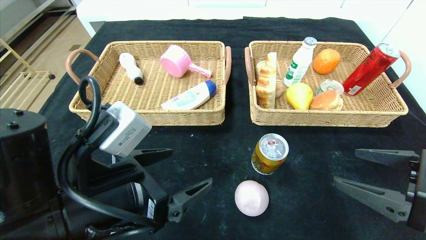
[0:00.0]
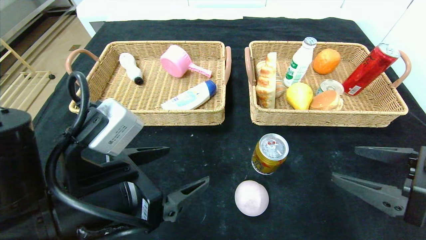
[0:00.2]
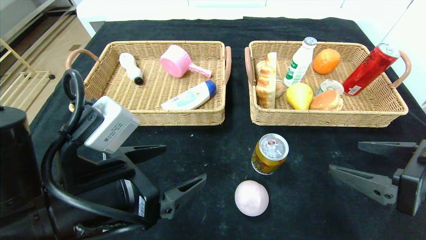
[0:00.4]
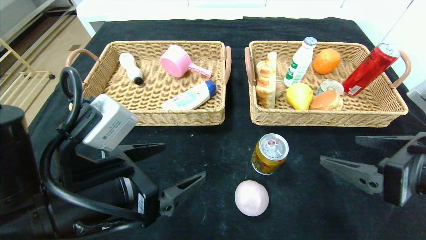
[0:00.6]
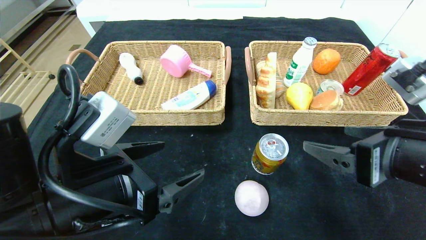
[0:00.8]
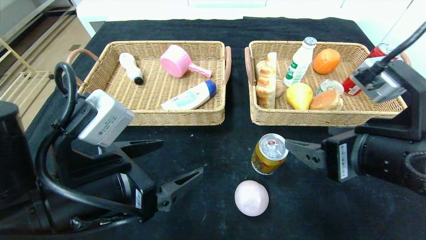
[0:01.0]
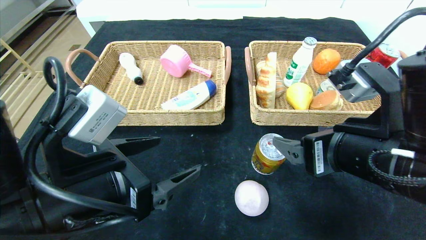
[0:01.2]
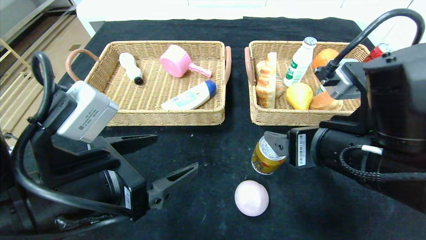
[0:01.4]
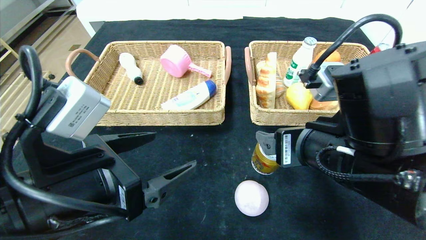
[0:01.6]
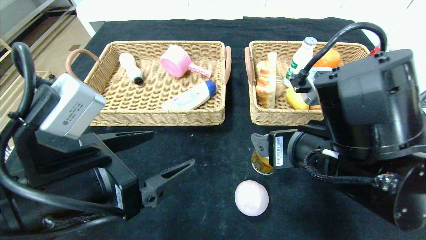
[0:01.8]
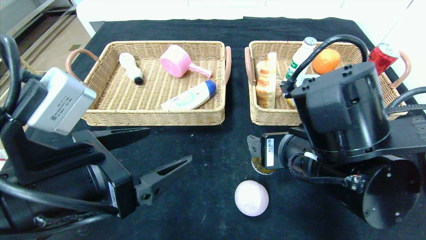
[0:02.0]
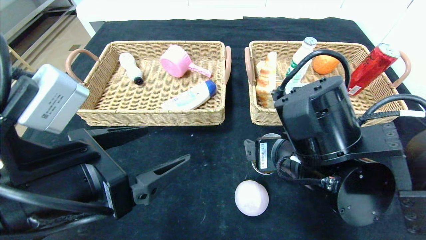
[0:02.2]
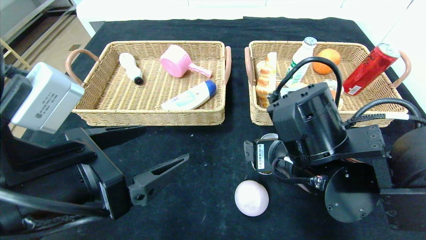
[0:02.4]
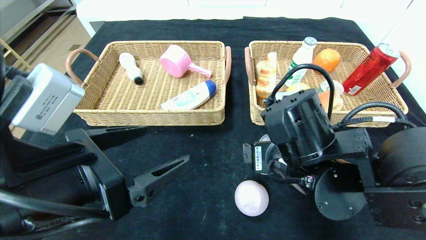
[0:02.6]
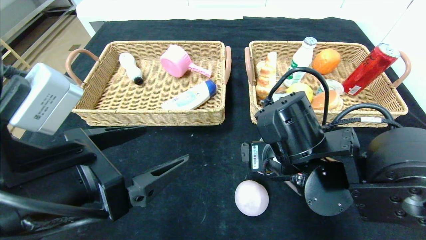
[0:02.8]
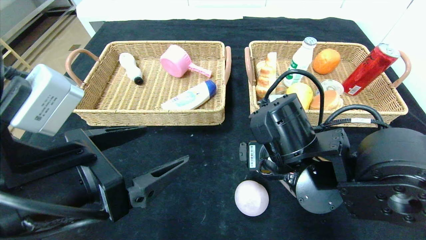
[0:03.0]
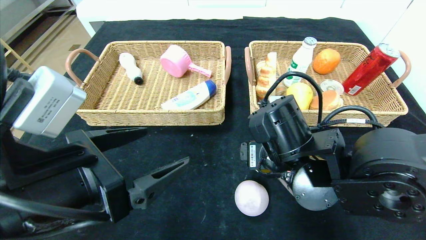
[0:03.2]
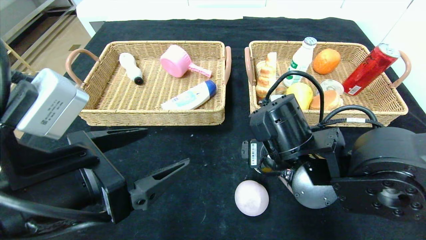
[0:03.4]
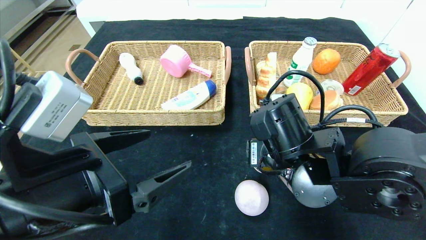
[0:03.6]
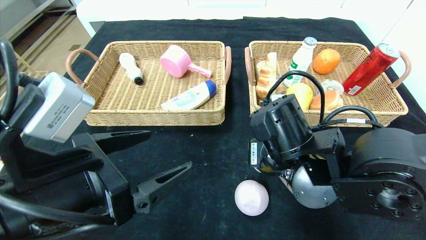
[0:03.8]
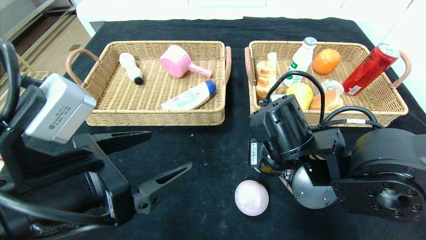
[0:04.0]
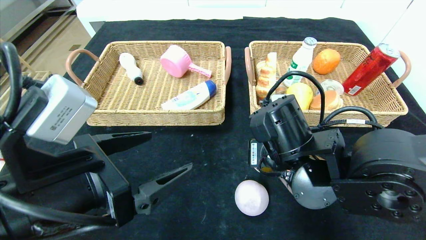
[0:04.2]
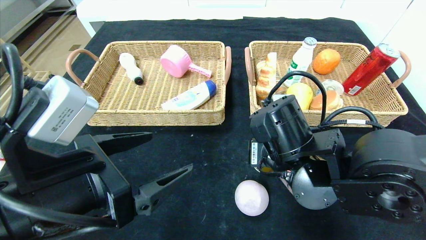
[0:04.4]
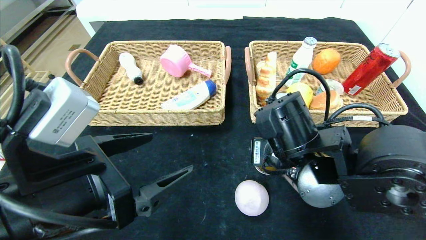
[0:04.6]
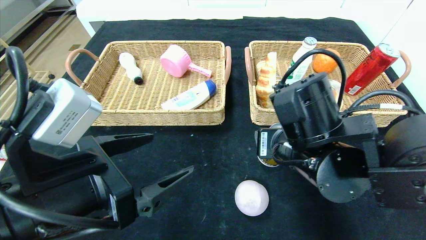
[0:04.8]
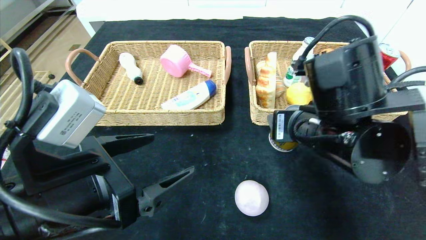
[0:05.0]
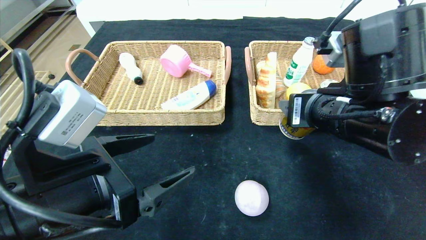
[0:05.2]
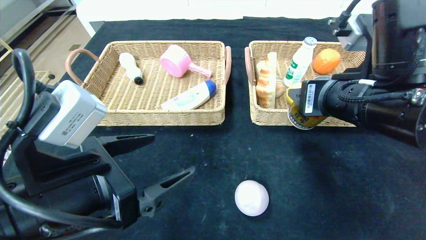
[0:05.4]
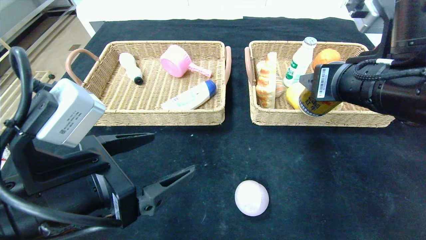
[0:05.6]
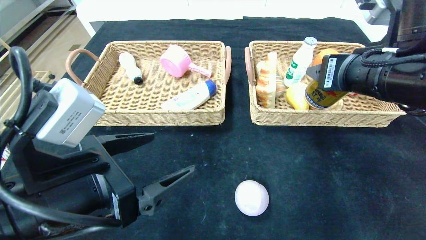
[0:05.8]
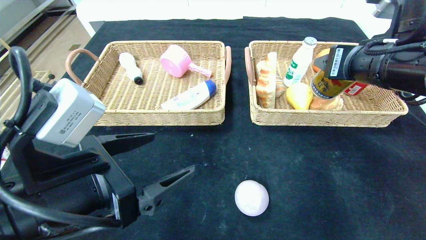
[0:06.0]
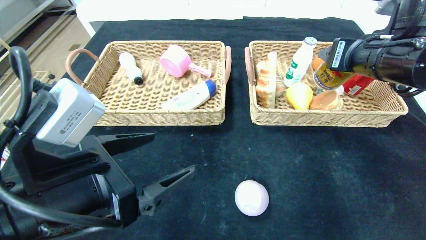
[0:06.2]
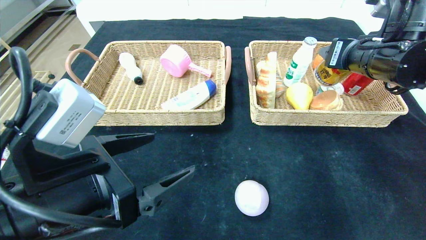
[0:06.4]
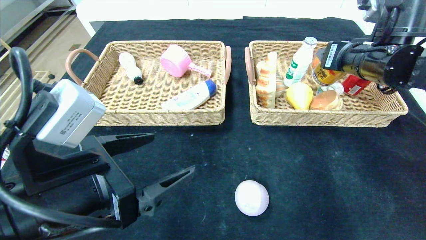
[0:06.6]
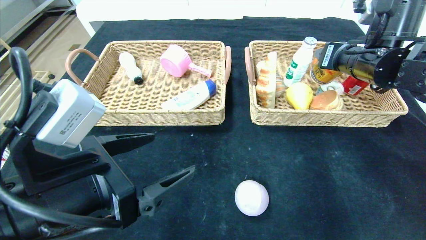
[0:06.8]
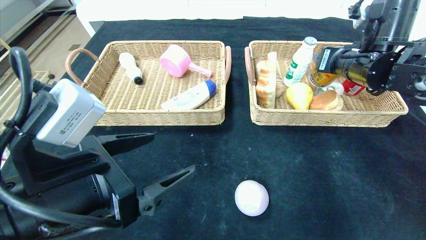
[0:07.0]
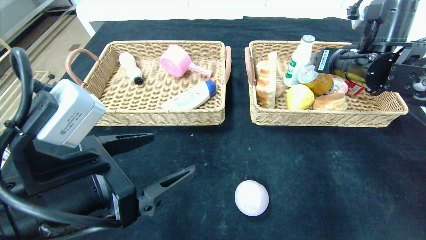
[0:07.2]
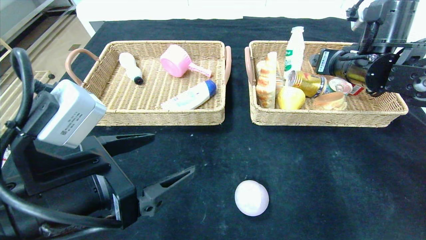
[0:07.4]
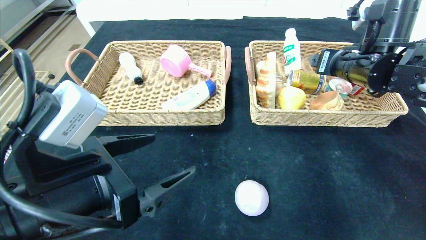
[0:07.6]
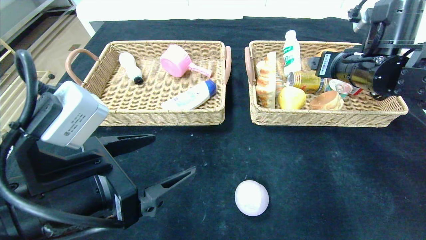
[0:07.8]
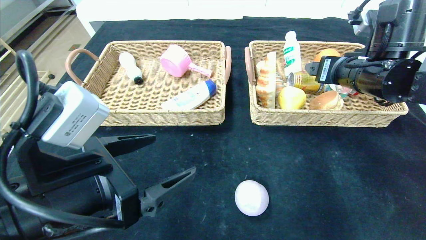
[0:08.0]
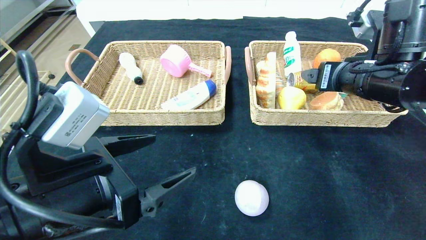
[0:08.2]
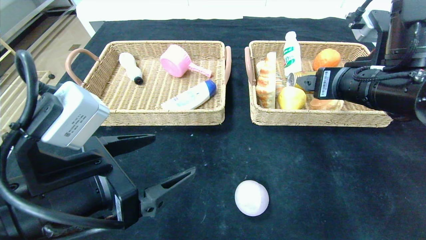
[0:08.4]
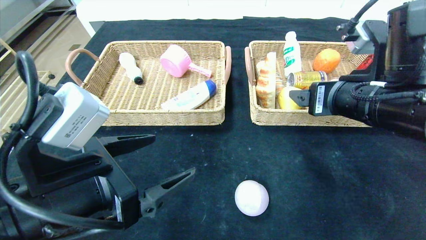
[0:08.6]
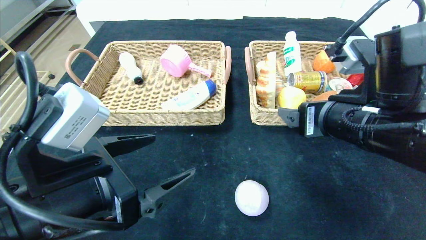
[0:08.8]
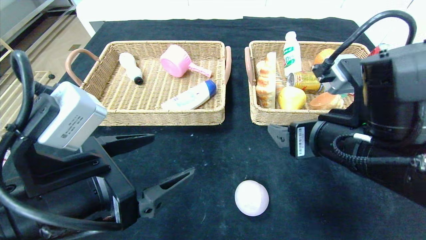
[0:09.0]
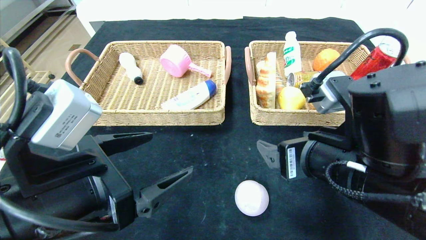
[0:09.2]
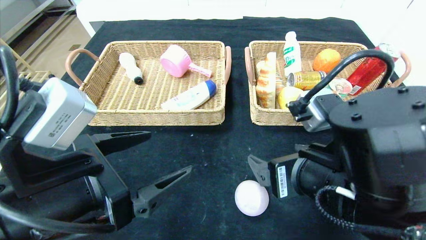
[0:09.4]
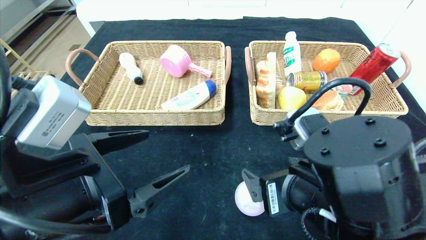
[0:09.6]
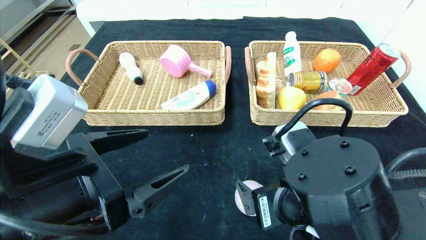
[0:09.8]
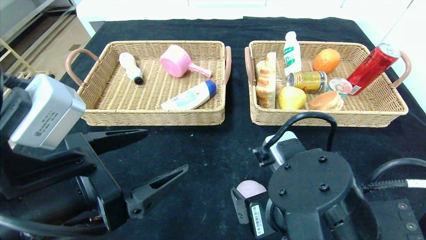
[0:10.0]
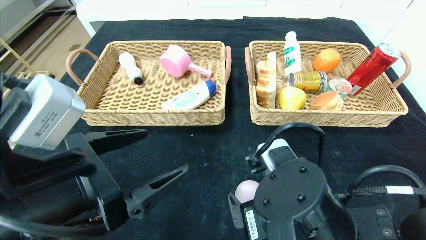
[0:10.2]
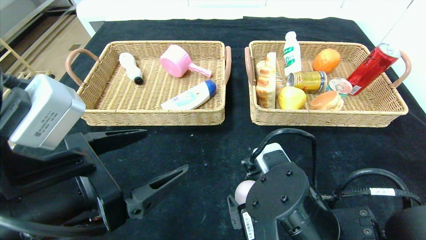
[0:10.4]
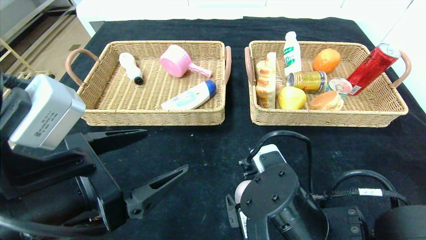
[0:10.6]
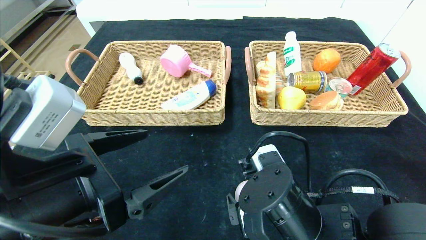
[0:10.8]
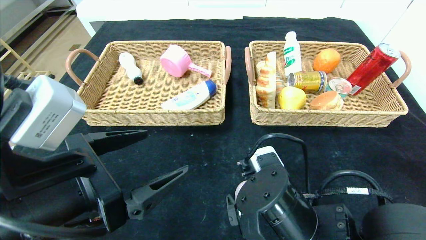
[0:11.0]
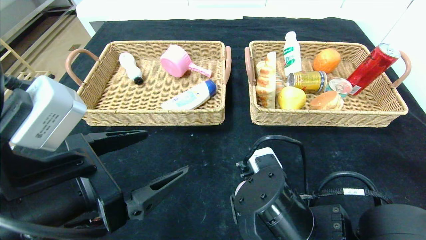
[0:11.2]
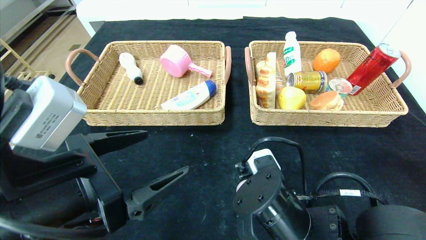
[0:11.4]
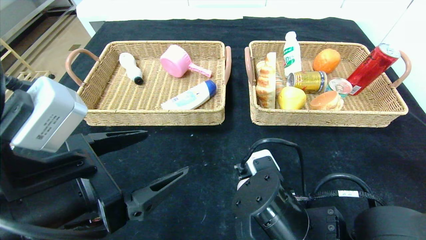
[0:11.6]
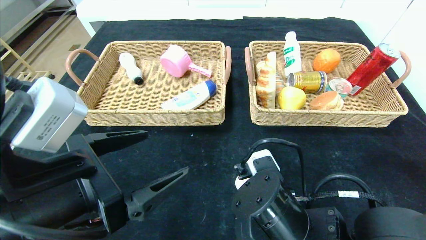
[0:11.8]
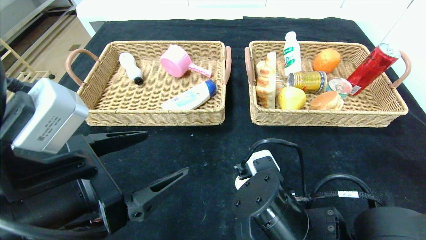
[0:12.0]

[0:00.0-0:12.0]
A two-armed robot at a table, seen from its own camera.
Step, 0:00.0 to 0:07.2: Grasp the Red Bull and put it in the right basket.
0:00.0 to 0:01.6: The right gripper travels to the left by approximately 15 cm.
0:01.6 to 0:03.0: The right gripper travels downward by approximately 5 cm.
0:03.0 to 0:04.4: Both grippers stay about where they are.
0:04.4 to 0:06.0: The right gripper shifts some 20 cm upward and to the right.
0:06.0 to 0:07.6: The right gripper moves forward, roughly 10 cm.
0:07.6 to 0:09.0: The right gripper heads backward and to the left, covering some 20 cm.
0:09.0 to 0:10.4: The right gripper heads downward and to the left, covering about 10 cm.
0:10.4 to 0:12.0: The right gripper closes up.

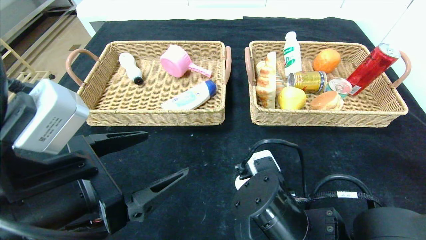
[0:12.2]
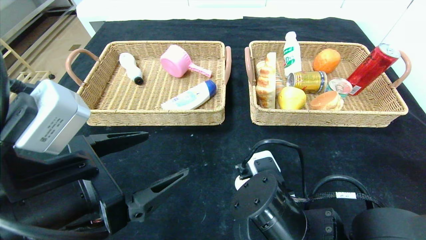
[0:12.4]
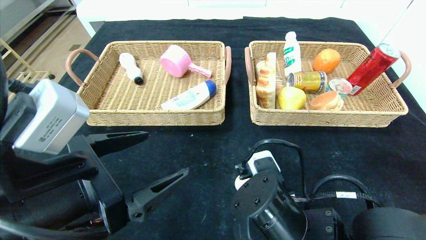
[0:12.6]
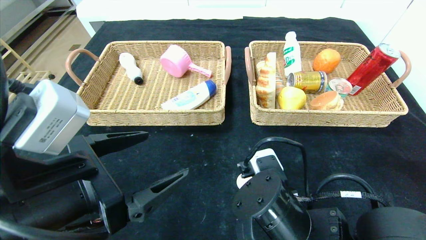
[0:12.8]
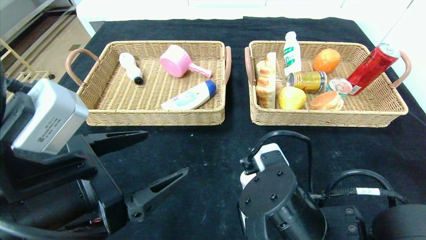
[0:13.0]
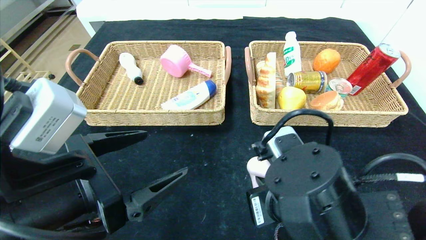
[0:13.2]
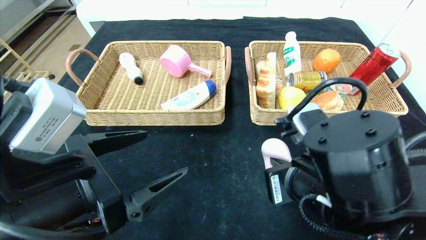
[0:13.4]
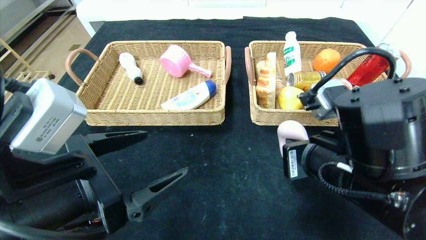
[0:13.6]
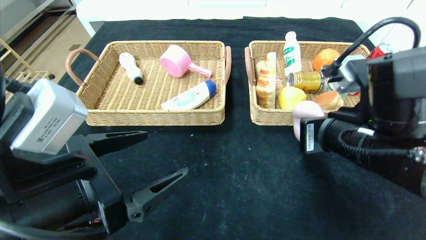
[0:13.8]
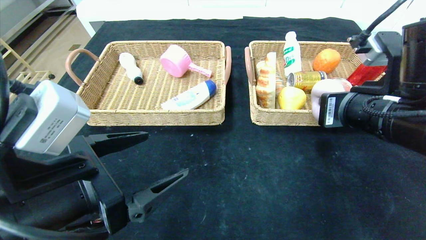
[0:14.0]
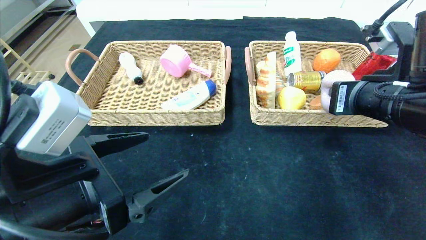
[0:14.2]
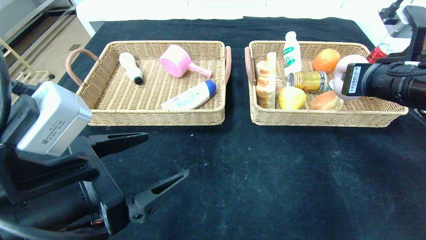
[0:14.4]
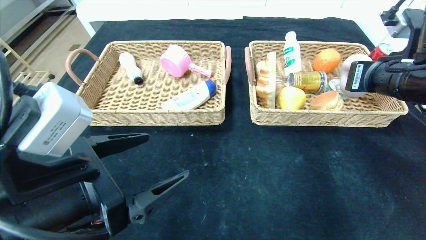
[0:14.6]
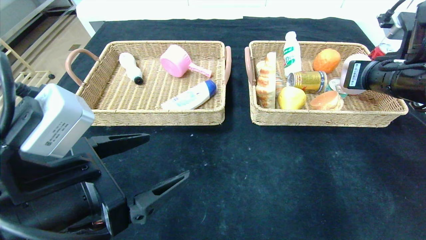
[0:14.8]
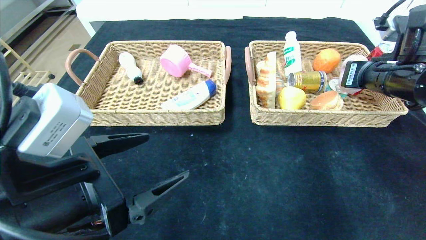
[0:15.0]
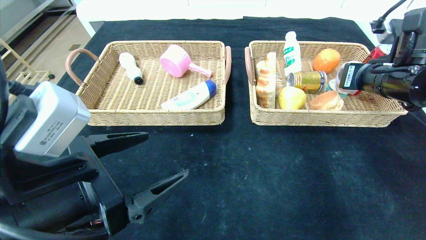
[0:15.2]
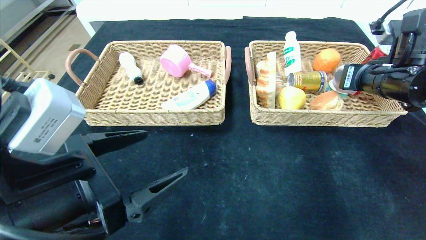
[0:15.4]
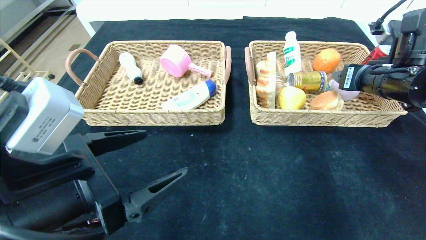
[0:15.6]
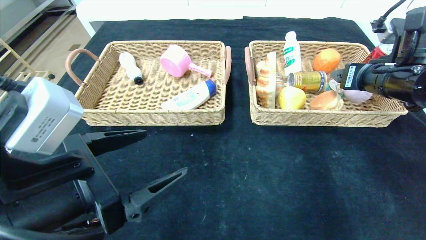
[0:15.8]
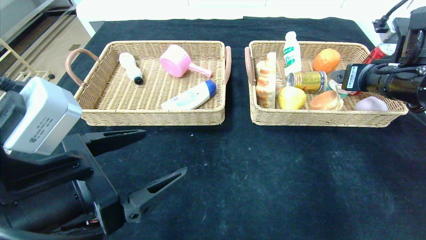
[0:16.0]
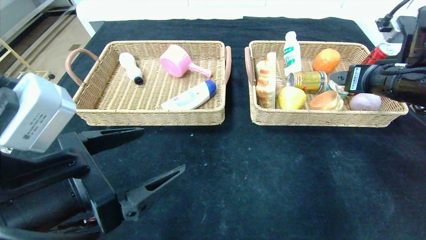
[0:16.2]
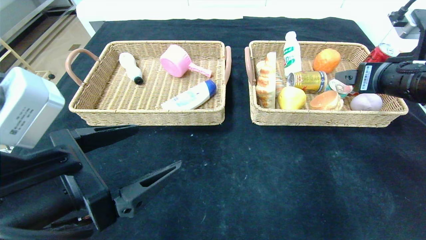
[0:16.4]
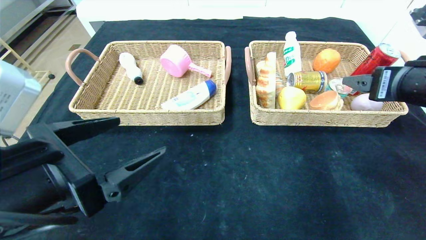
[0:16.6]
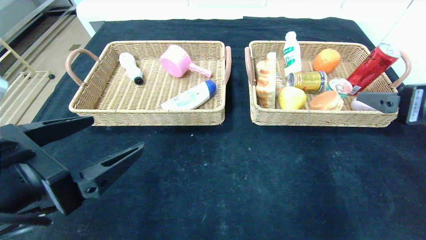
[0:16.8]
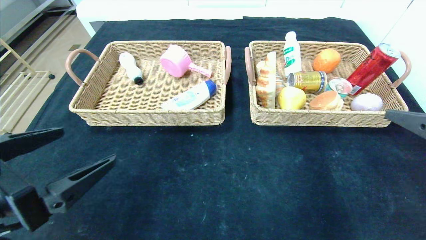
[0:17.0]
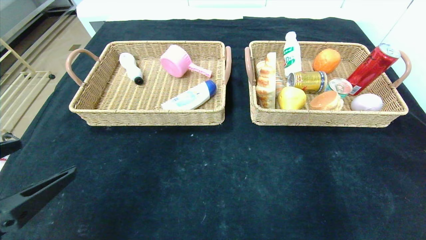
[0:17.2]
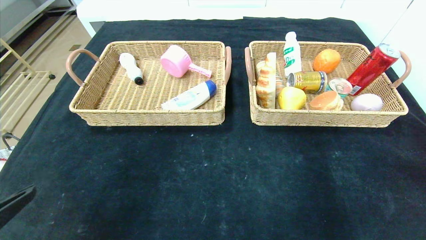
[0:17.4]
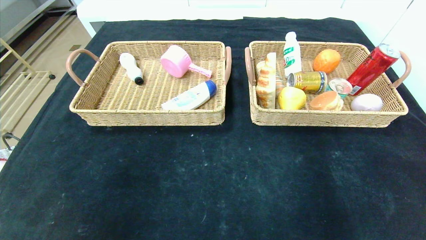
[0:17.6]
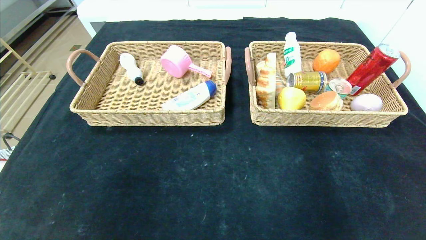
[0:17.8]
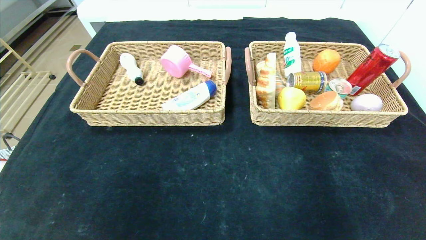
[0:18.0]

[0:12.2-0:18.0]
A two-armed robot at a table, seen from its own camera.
Step, 0:12.2 to 0:16.0: Grasp the peach and put it in the right basket.
0:12.2 to 0:13.6: The right gripper heads upward and to the right, covering approximately 10 cm.
0:13.6 to 0:15.0: The right gripper travels to the right, forward and upward by some 20 cm.
0:15.0 to 0:16.6: The right gripper moves backward, some 10 cm, and opens.
0:16.6 to 0:18.0: The left gripper goes approximately 25 cm backward and to the left, while the right gripper shifts some 30 cm backward.
